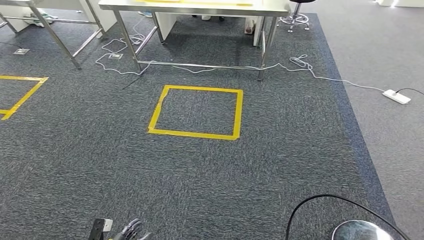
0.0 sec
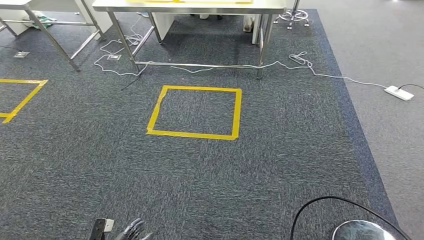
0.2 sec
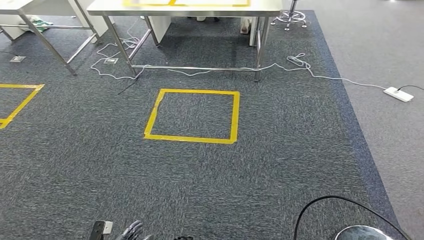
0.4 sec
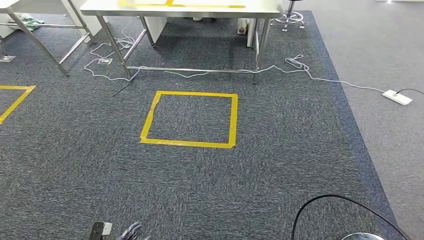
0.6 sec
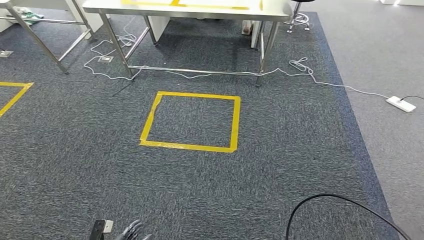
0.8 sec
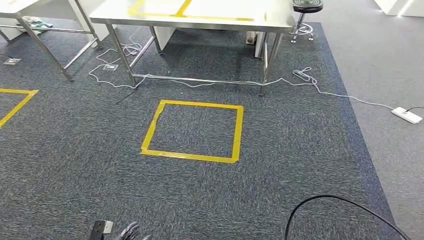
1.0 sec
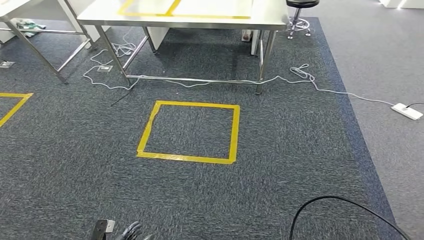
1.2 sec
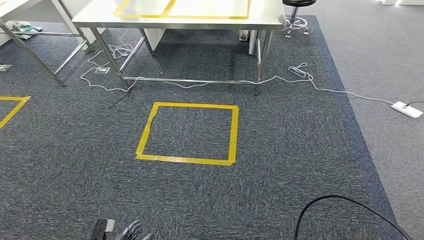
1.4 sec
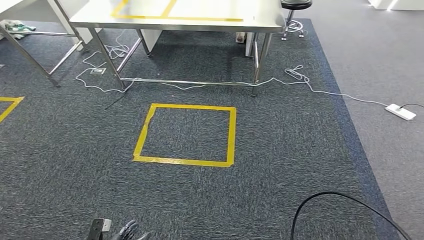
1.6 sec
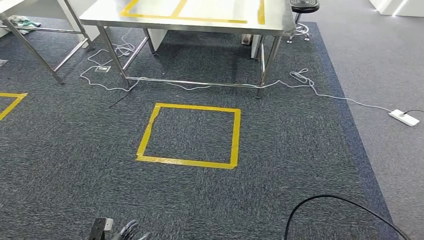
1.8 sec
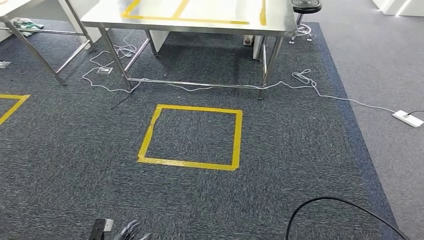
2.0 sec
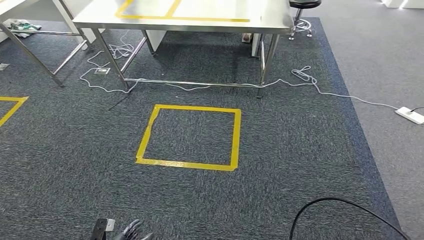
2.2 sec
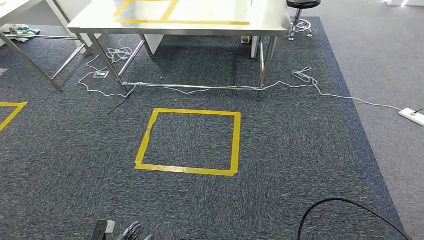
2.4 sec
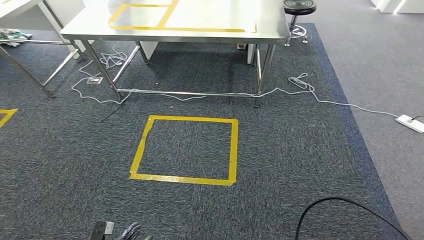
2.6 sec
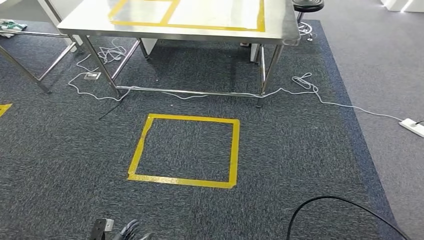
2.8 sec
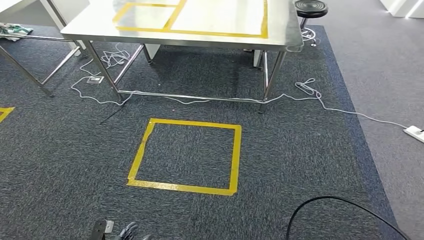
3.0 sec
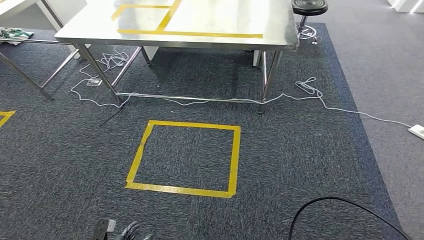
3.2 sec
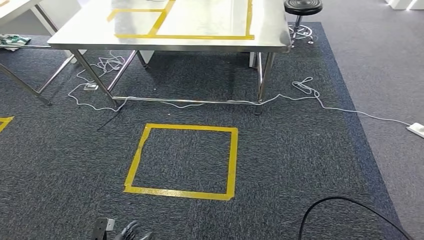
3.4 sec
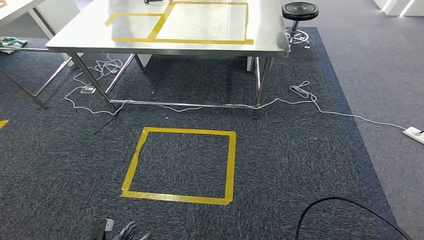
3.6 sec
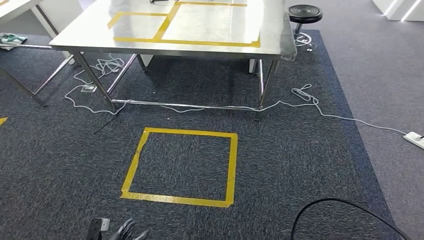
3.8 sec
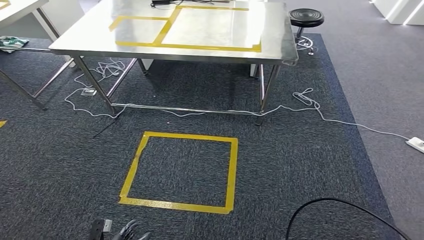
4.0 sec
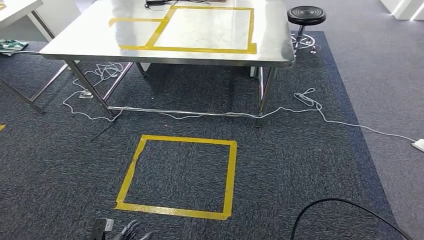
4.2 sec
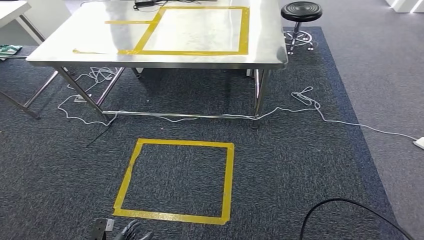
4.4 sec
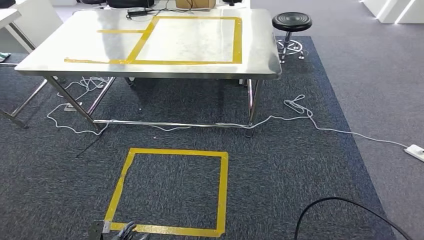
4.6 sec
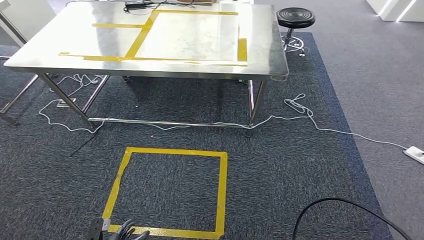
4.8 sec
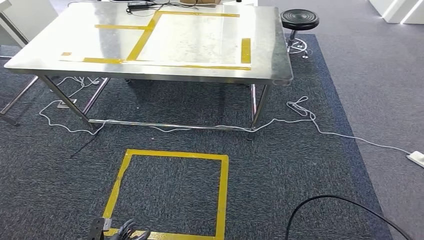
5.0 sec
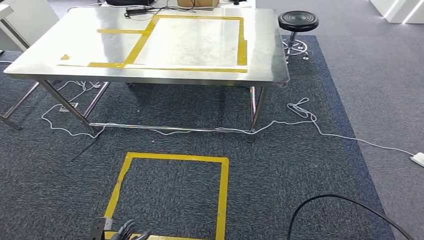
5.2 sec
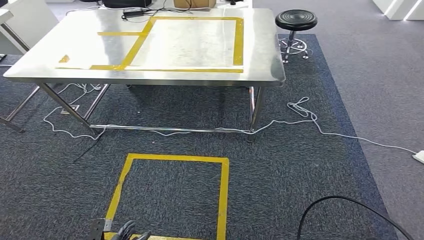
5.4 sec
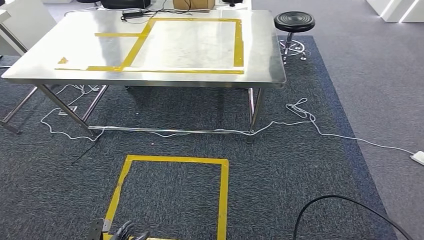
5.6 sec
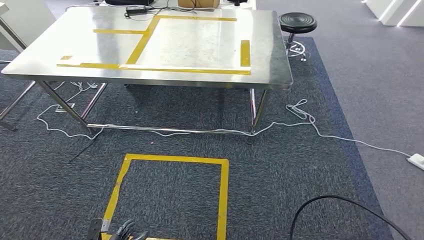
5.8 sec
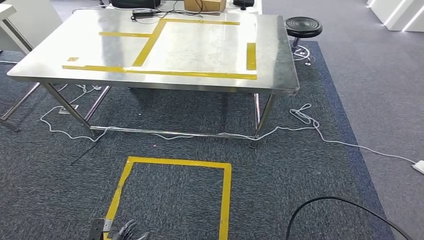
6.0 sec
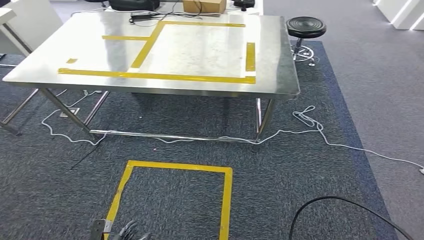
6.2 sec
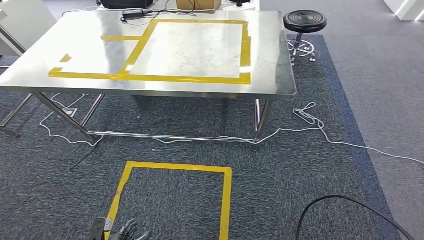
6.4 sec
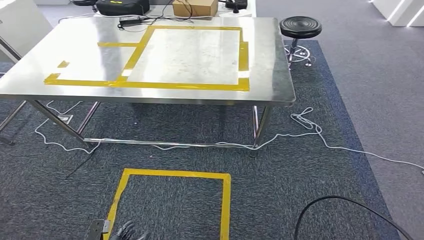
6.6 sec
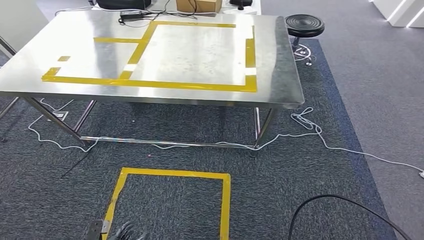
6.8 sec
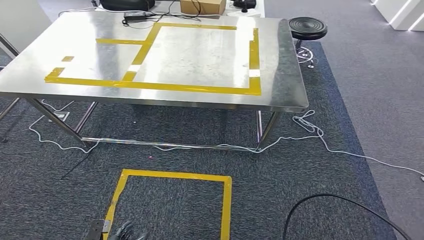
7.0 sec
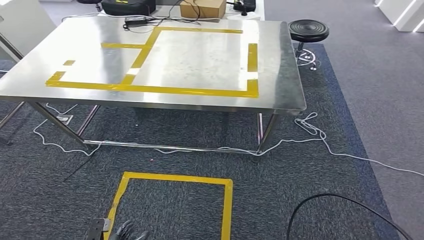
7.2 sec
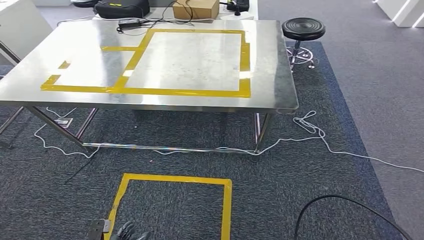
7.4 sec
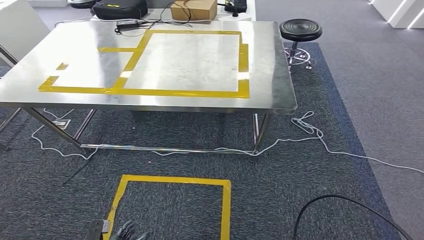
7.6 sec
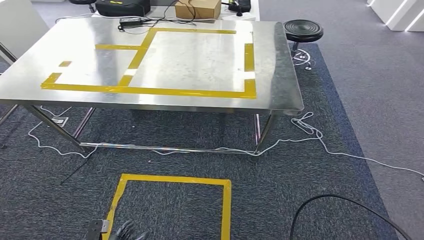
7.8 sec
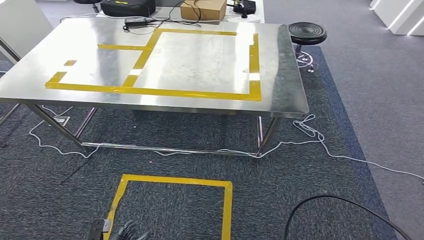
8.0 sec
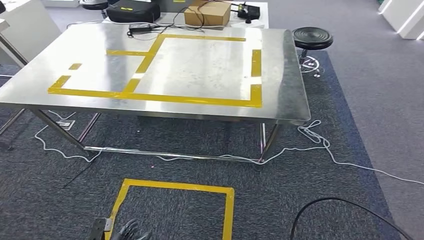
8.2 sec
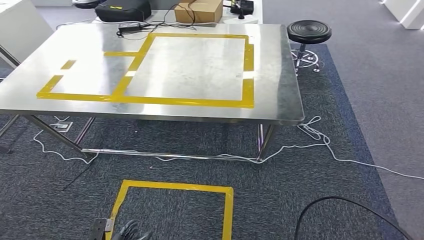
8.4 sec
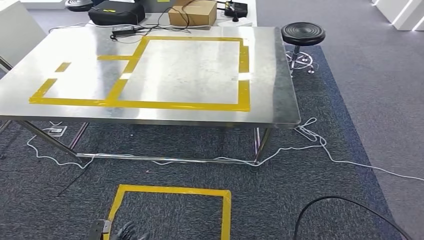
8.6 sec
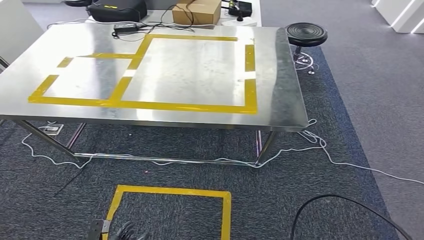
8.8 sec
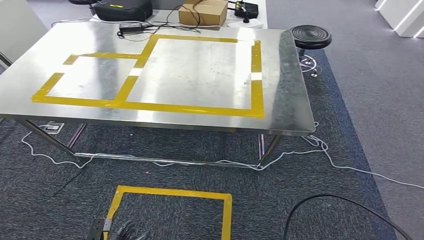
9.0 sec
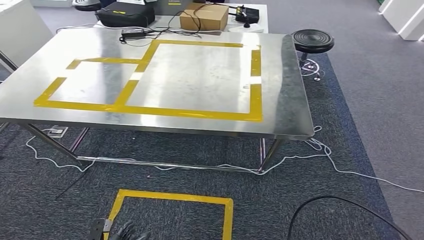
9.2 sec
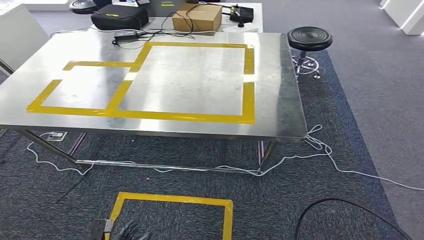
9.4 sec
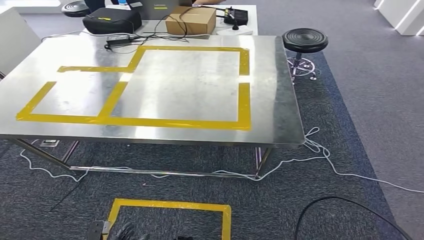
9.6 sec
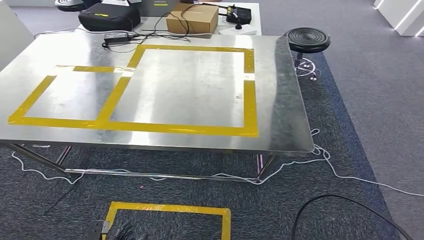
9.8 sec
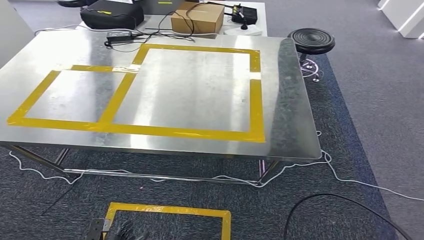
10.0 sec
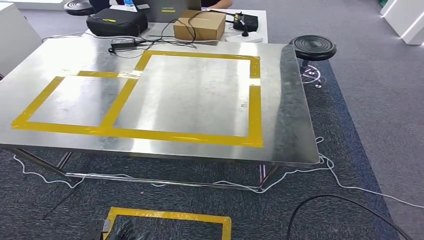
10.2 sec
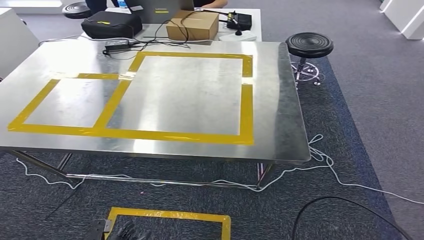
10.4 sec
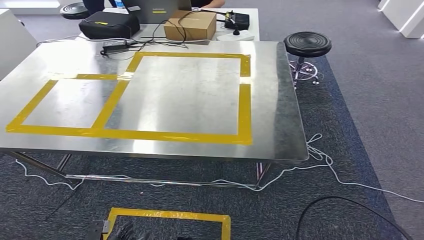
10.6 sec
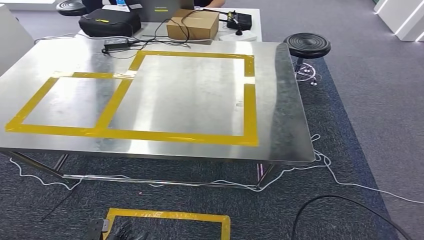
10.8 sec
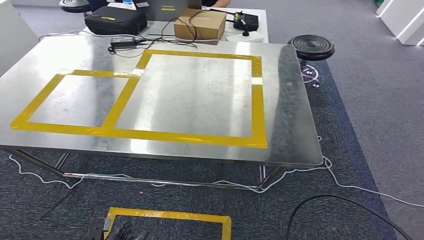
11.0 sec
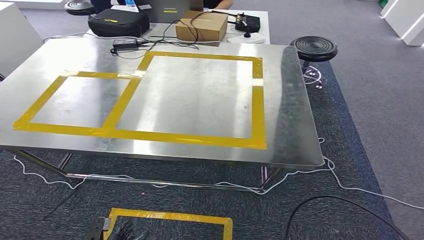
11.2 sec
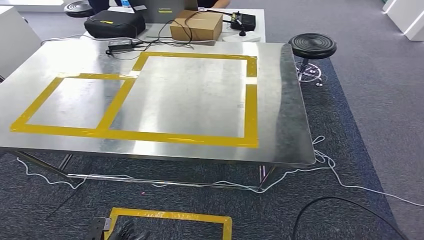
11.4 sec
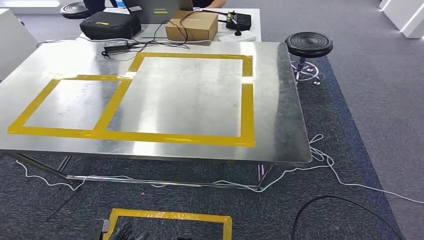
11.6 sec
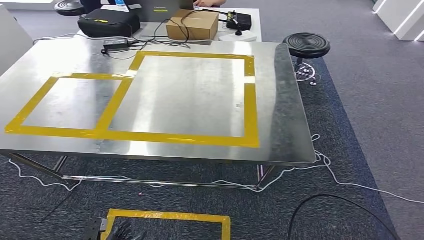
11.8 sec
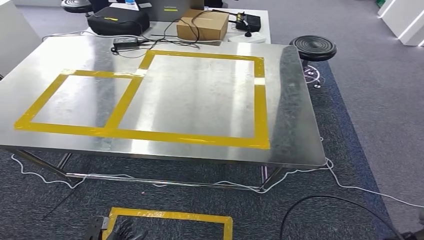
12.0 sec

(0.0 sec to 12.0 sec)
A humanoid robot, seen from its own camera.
Step, 0.0 sec - 4.4 sec: Move the small component to the workbench.
10.4 sec - 12.0 sec: The right hand shifts about 5 cm forward and downward.

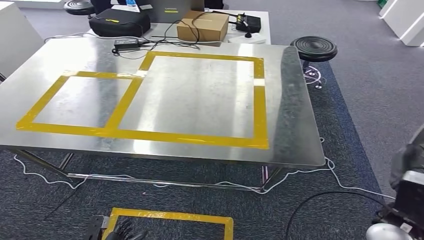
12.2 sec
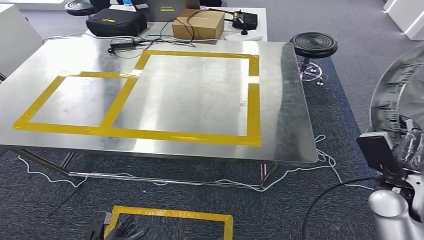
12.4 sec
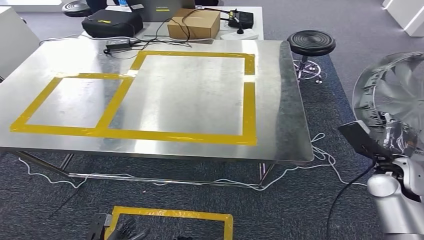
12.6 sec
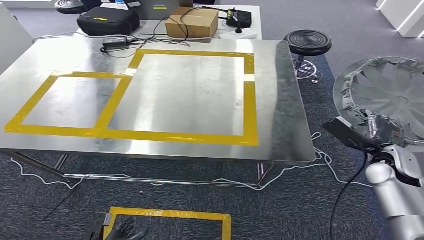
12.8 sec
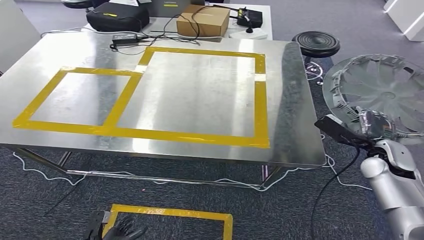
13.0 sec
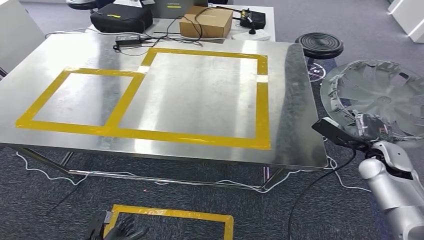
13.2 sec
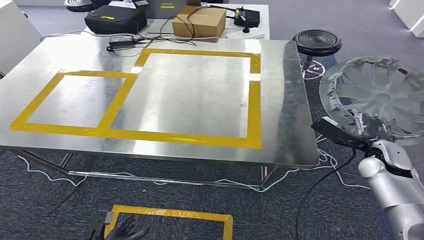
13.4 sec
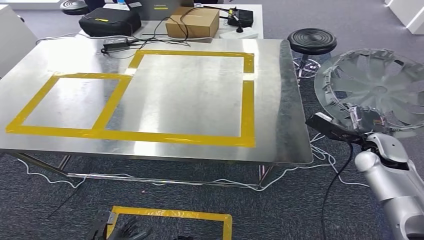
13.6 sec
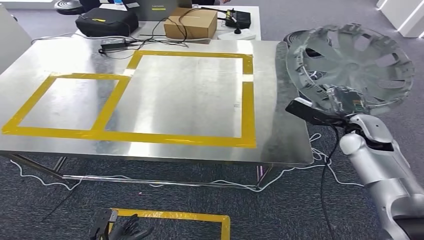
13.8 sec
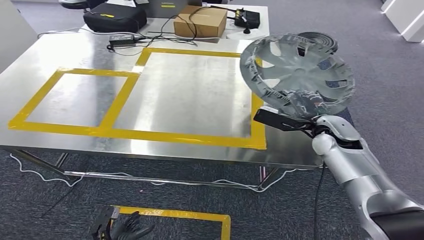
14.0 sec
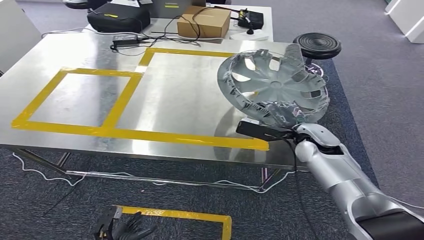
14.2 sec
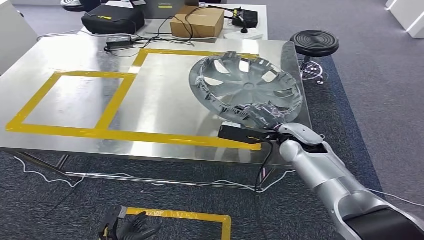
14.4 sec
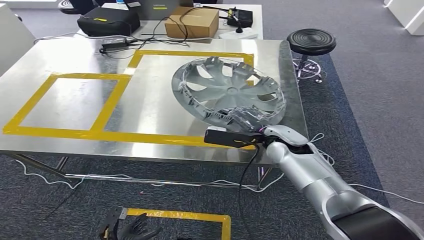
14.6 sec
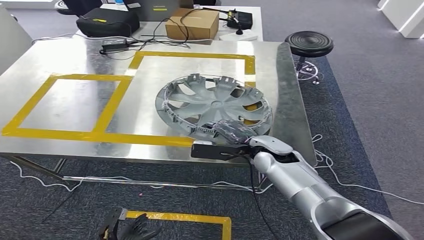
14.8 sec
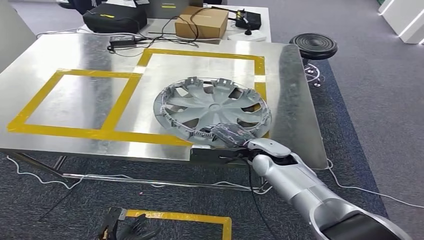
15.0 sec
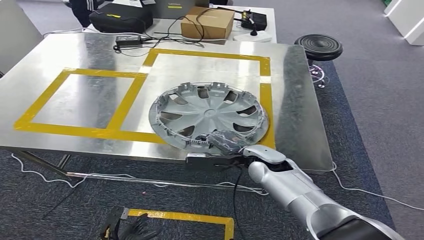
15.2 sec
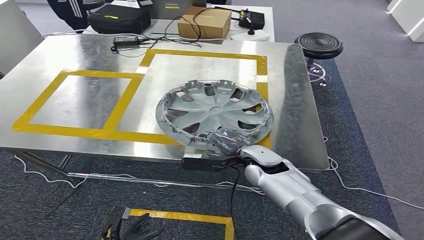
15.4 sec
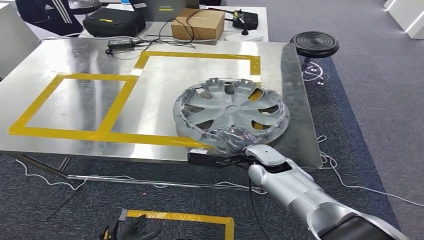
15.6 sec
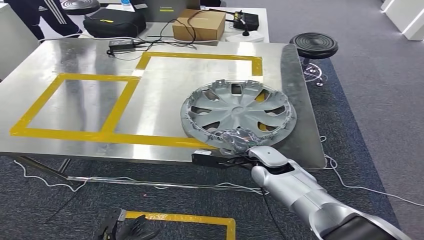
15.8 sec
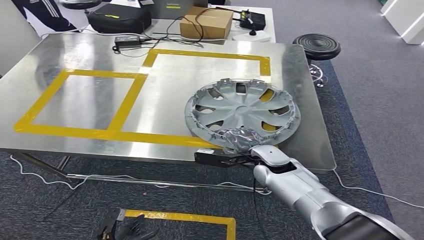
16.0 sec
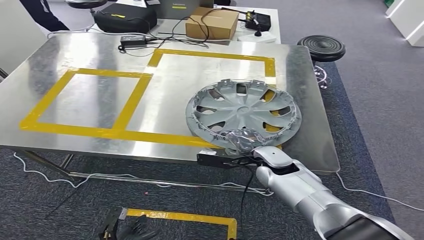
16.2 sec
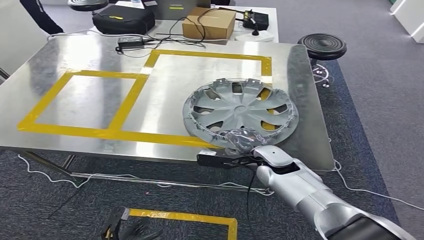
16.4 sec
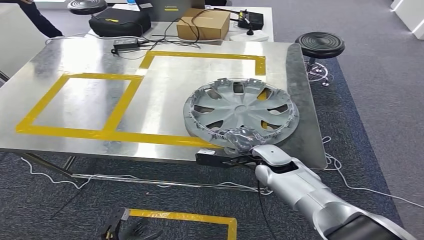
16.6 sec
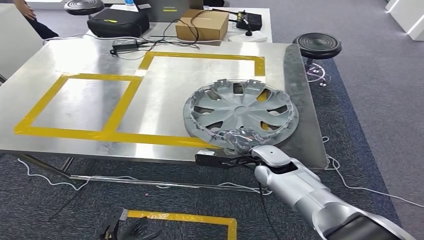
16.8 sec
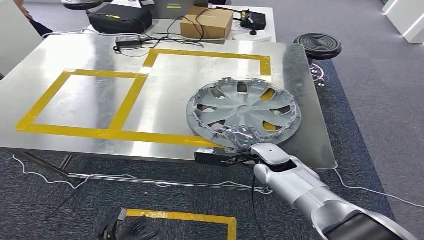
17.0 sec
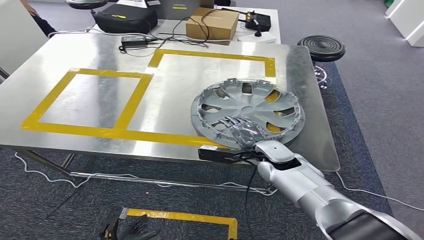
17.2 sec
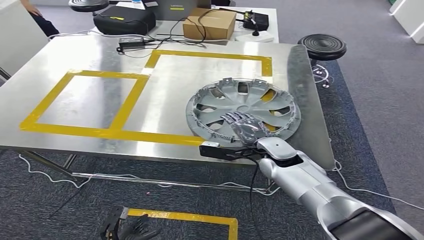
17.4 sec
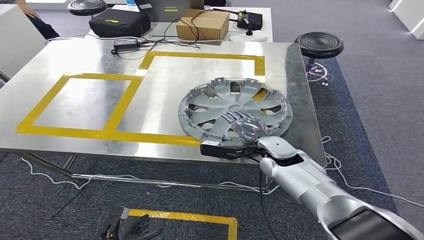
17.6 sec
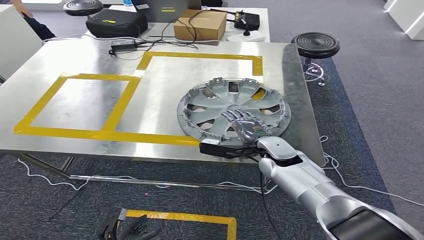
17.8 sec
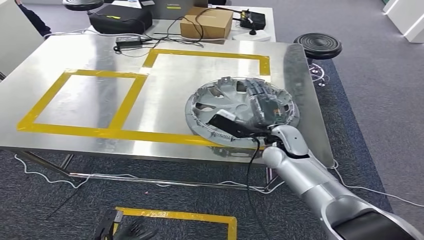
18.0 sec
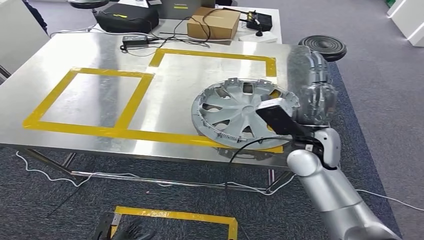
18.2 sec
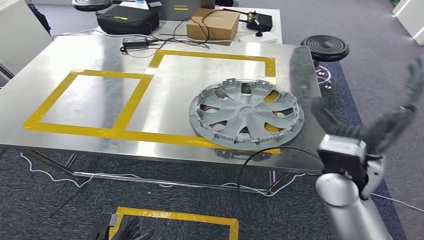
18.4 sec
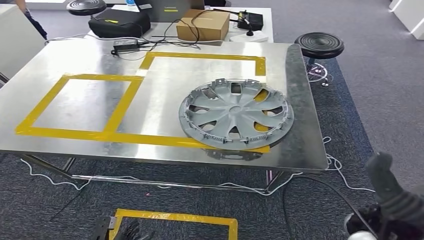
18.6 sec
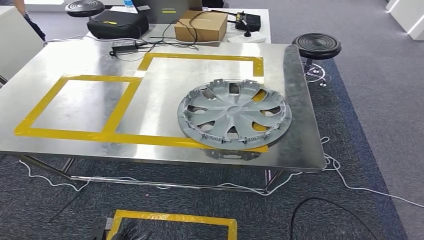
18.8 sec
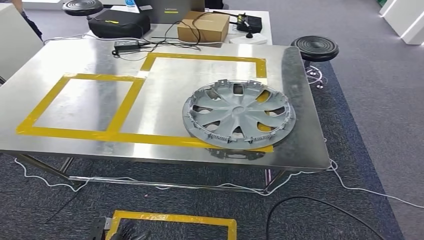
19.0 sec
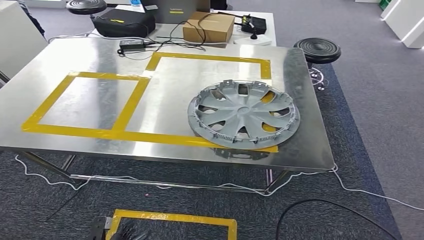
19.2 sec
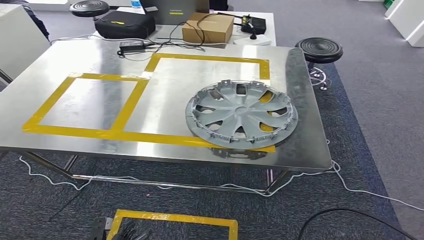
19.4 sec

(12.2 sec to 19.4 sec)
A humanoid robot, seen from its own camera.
Step, 12.2 sec - 17.2 sec: Insert the small component into the corresponding slot on the workbench.
